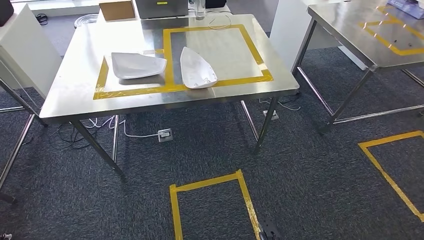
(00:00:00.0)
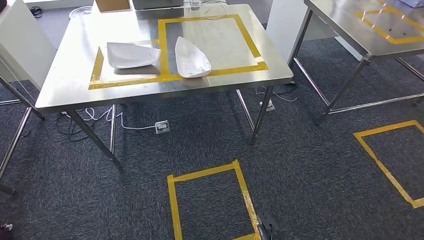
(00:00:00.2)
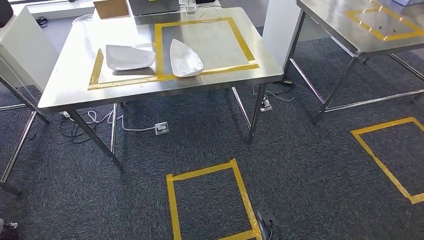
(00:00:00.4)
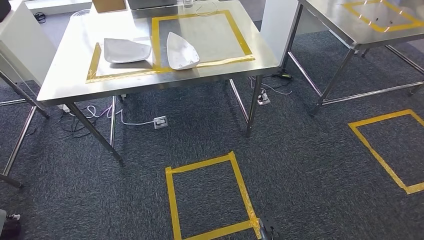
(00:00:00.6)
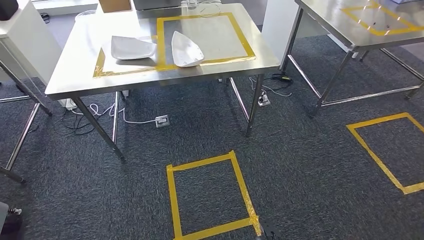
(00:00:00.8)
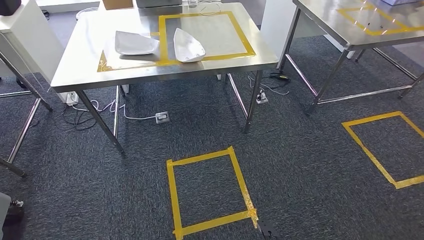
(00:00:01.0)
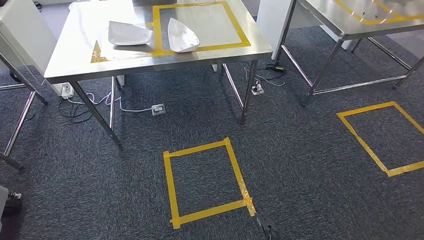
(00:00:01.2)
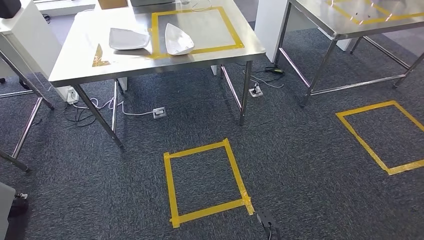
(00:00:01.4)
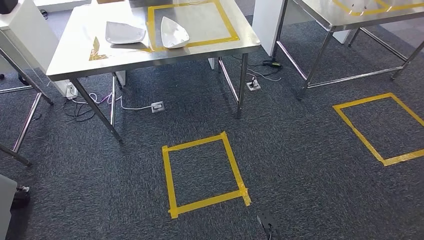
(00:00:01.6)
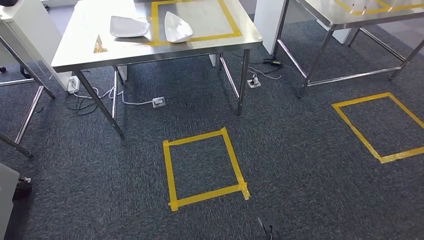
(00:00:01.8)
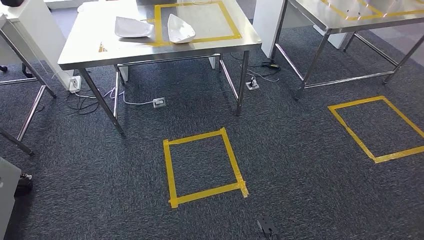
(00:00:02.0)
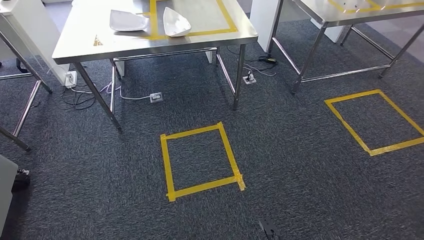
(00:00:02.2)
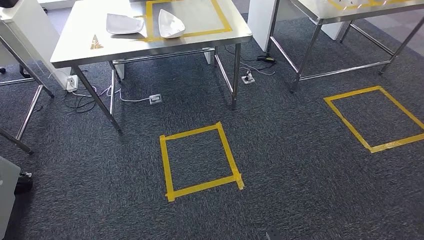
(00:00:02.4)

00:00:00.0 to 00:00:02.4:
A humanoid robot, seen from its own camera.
Step, 00:00:00.0 to 00:00:02.4: Move to the initial position at the workbench.
